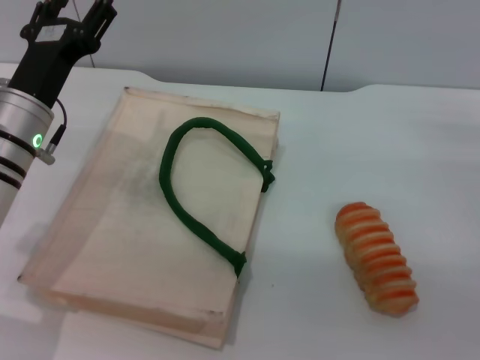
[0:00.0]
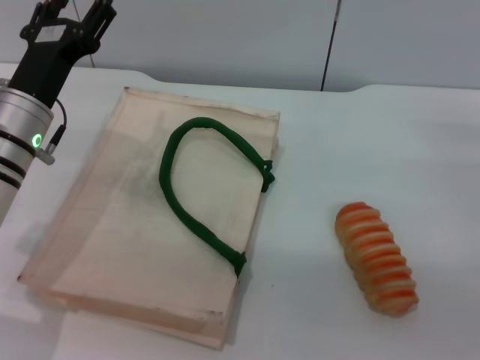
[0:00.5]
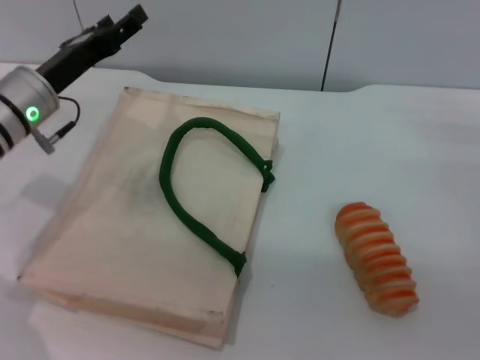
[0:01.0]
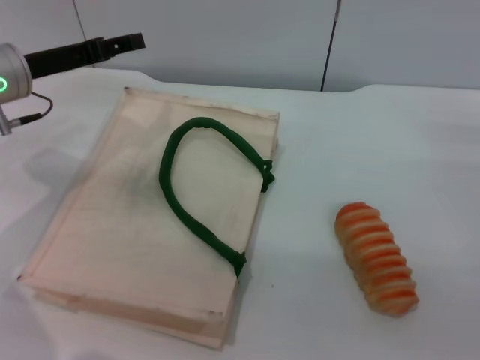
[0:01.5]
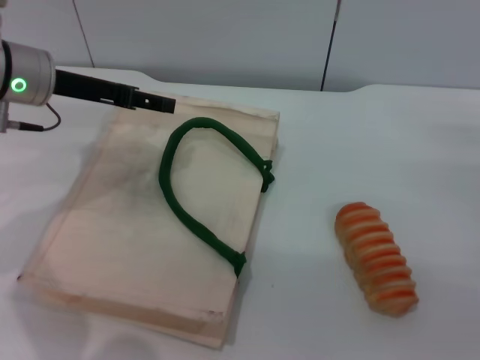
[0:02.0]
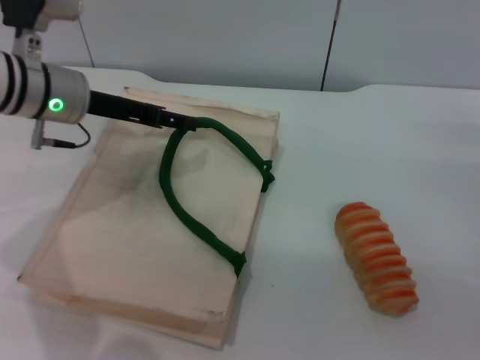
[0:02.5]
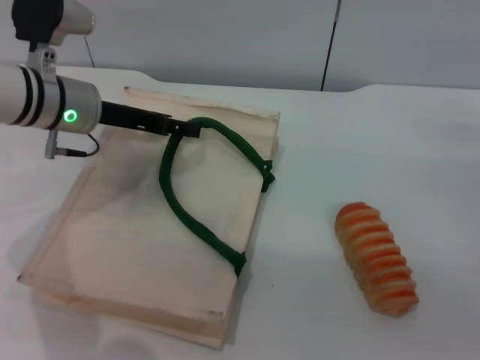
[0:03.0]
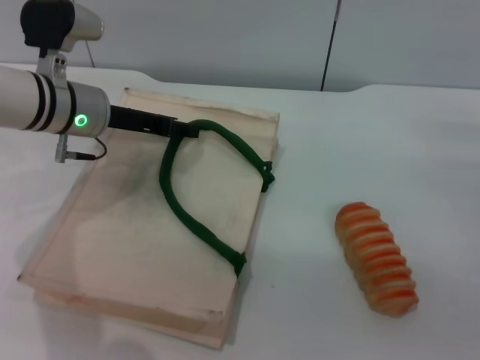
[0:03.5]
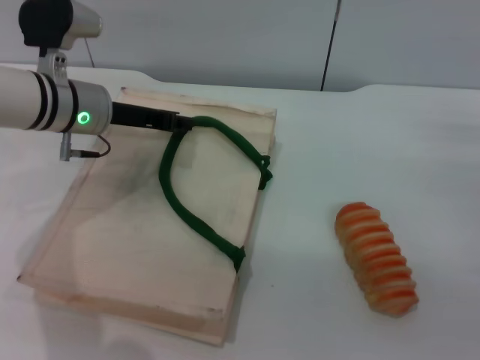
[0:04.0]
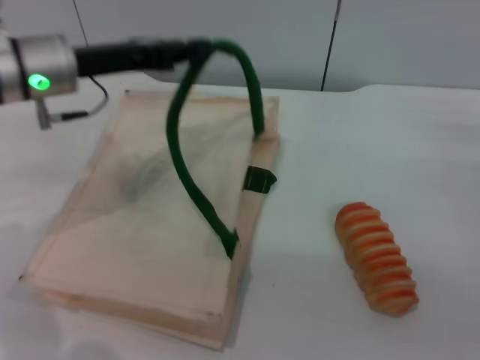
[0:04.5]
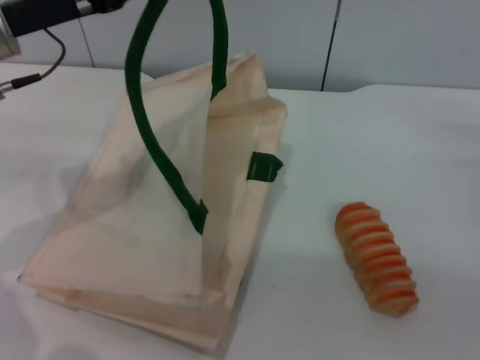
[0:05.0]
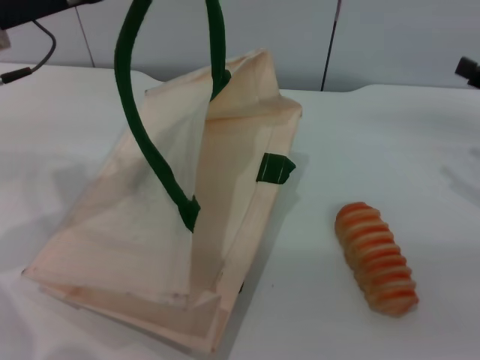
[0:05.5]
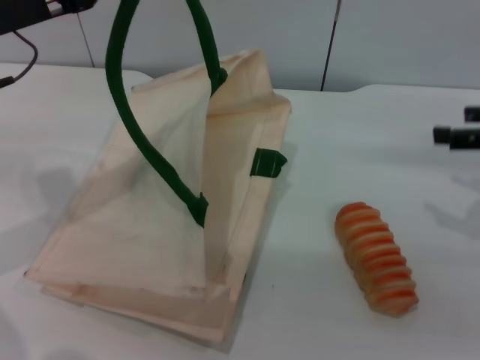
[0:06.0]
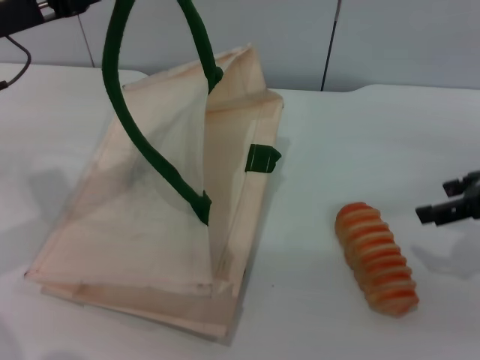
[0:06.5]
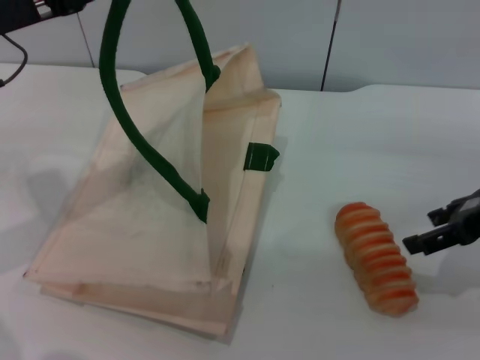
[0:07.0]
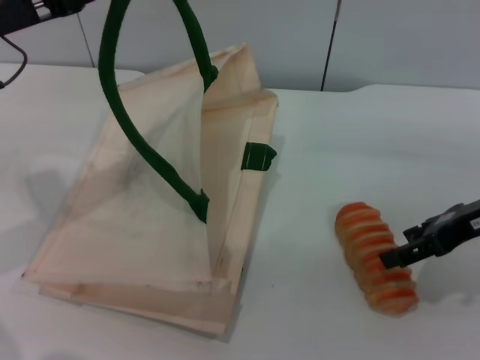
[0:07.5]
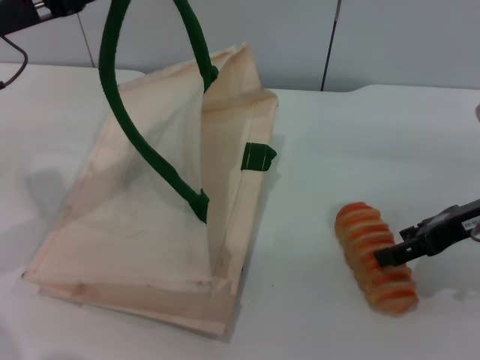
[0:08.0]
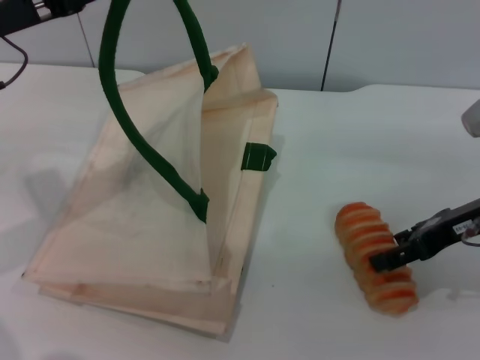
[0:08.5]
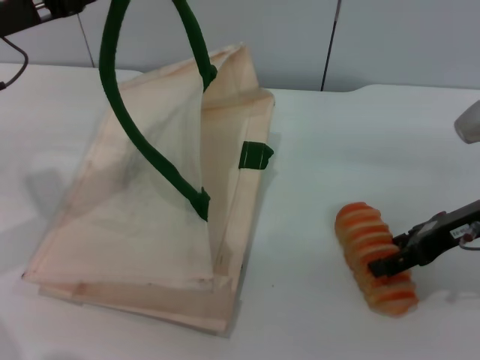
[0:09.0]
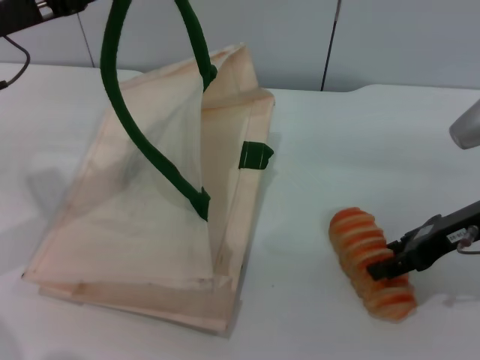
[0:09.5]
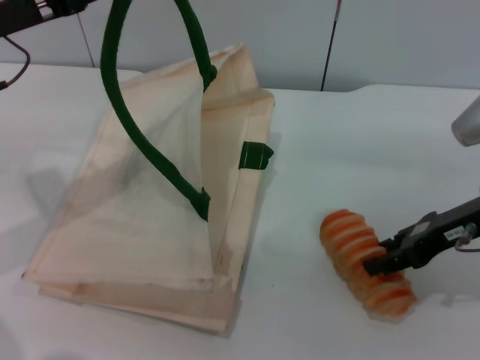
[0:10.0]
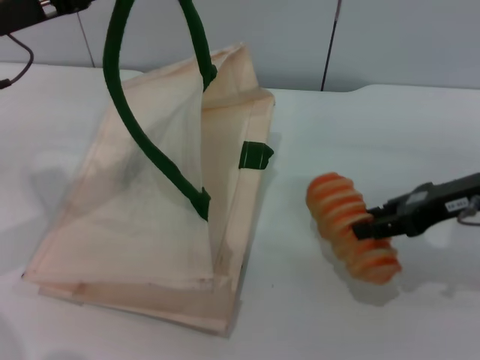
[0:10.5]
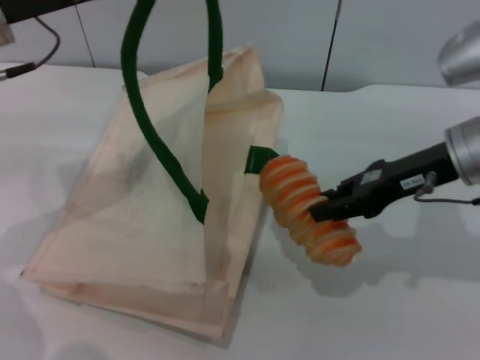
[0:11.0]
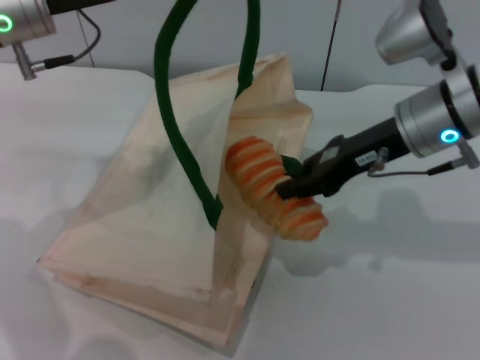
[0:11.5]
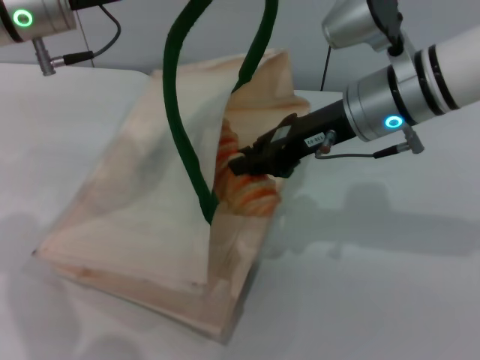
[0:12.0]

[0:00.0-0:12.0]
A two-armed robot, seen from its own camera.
Task of the whole recording: pick up the bread from the table and place it in the white handbag.
Step, 0:00.0 to 0:04.5: Lift the woven bag with the left gripper to open it.
Step, 0:05.0 to 0:10.5: Pick up the bread with the right gripper.
0:00.0 to 0:02.0: The left gripper is displaced upward and forward by about 10 cm.
0:02.0 to 0:04.0: The left gripper goes some 5 cm downward, and closes its fingers.
0:04.0 to 0:06.0: The left gripper goes about 10 cm upward and to the left. Meanwhile the right gripper is displaced upward by about 10 cm.
0:06.0 to 0:08.0: The right gripper shifts about 5 cm to the left.
0:08.0 to 0:10.0: The right gripper closes.
0:10.0 to 0:12.0: The right gripper shifts some 15 cm to the left and forward, and closes; the left gripper moves to the right, some 10 cm.

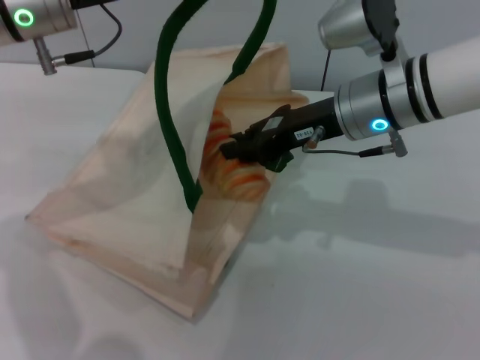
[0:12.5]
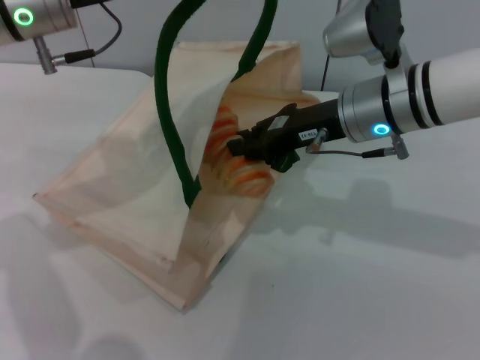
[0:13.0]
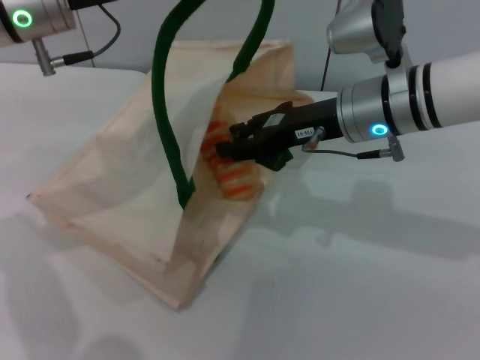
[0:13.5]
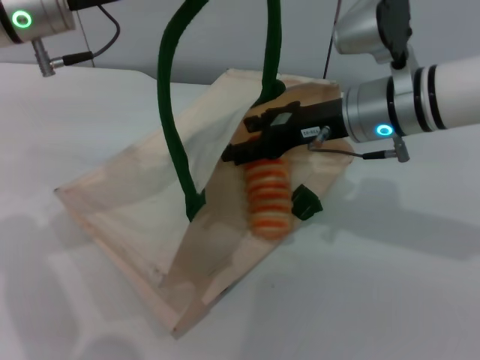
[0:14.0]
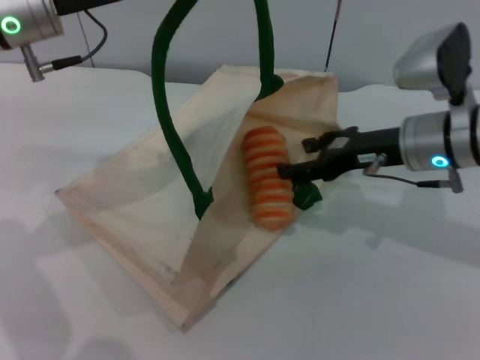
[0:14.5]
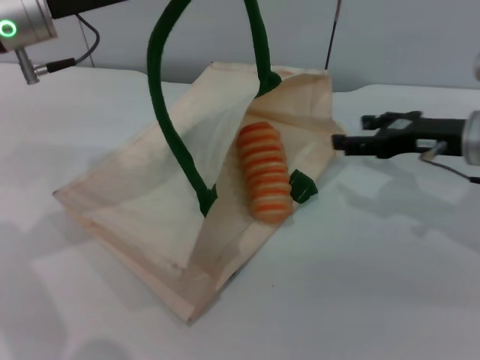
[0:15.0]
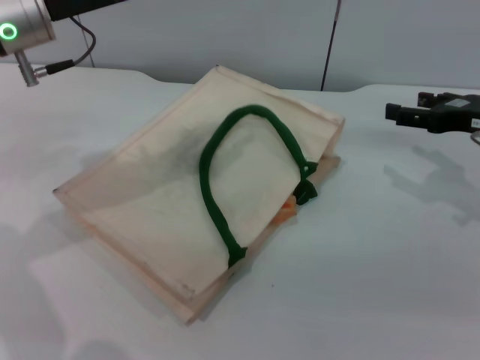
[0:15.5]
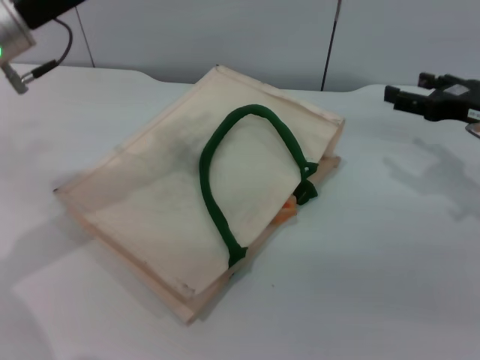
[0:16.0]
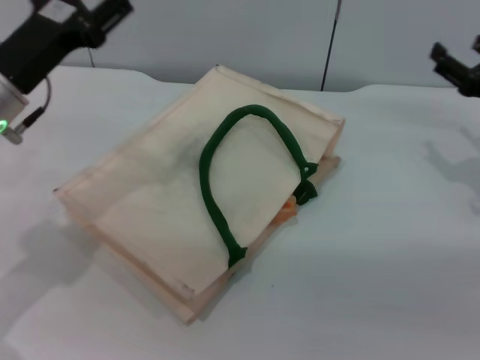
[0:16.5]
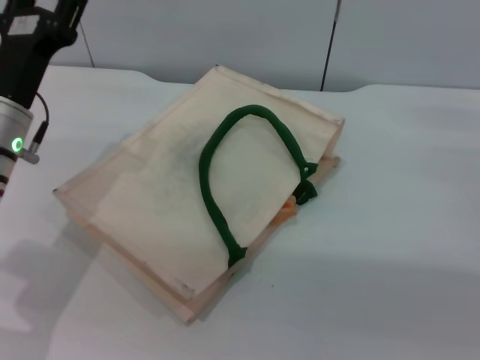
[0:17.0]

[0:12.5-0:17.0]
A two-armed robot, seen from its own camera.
Task of the whole recording: pick up the bread from the table and place it in the white handbag.
0:12.5 to 0:14.5: The right gripper is displaced to the right by some 5 cm, and opens its fingers.
0:14.5 to 0:17.0: The right gripper is displaced to the right by about 15 cm; the left gripper shifts about 15 cm downward and backward, and opens up.

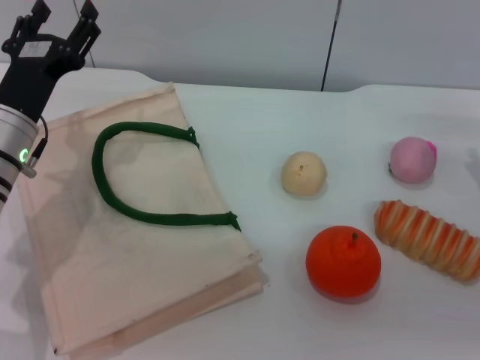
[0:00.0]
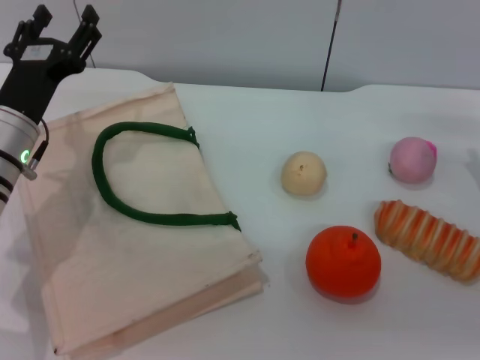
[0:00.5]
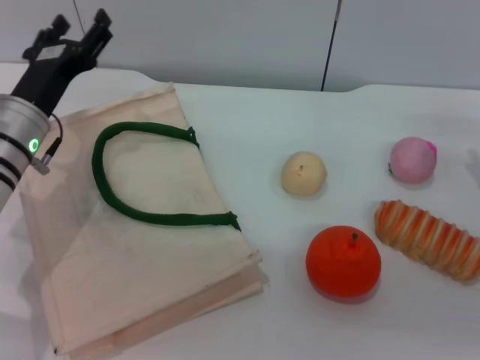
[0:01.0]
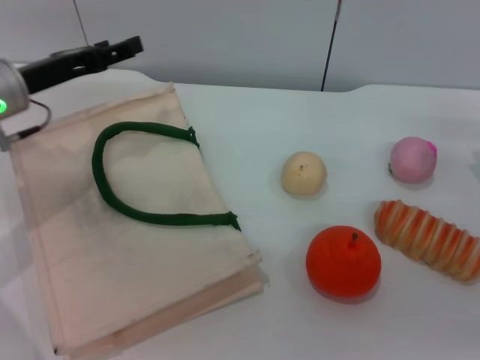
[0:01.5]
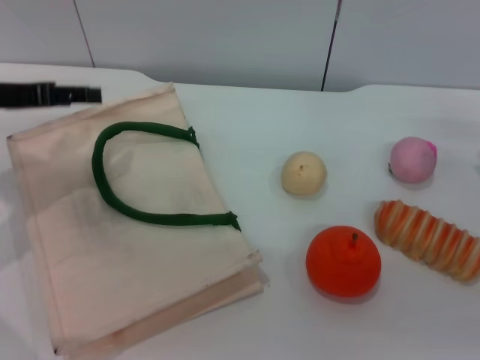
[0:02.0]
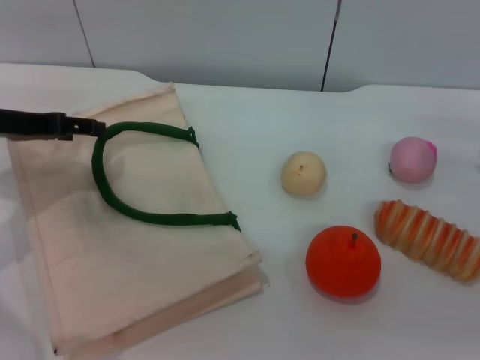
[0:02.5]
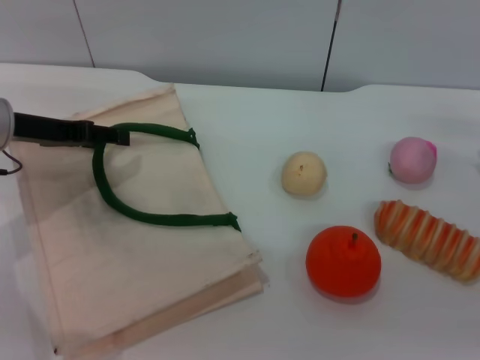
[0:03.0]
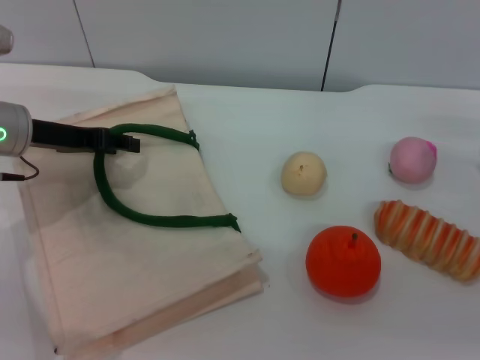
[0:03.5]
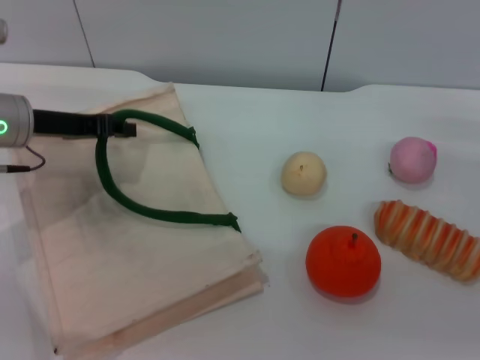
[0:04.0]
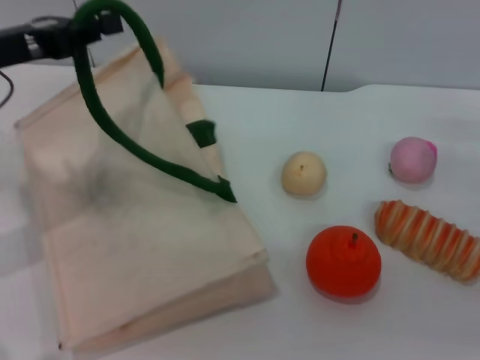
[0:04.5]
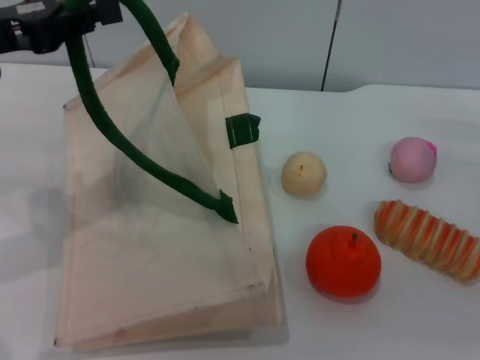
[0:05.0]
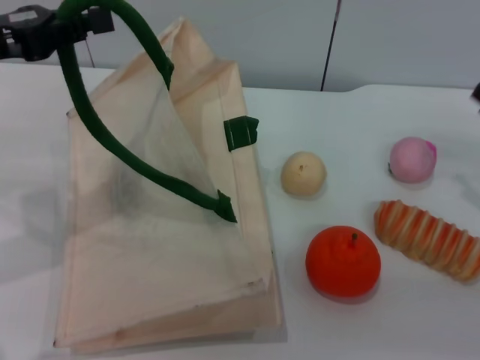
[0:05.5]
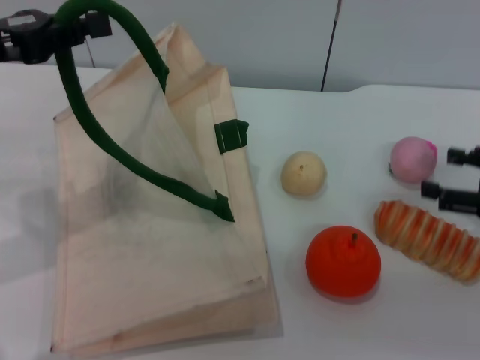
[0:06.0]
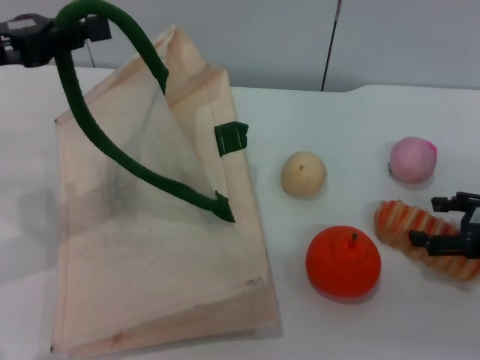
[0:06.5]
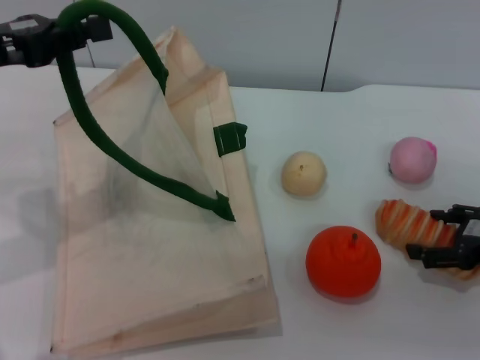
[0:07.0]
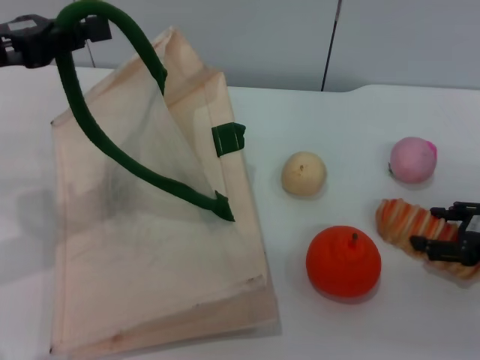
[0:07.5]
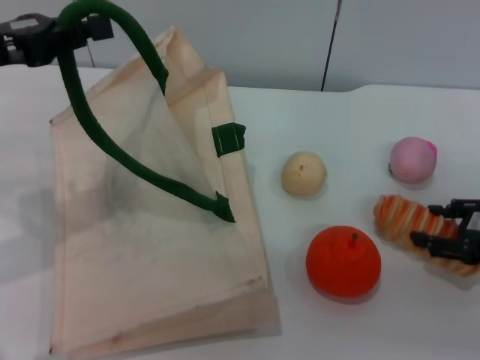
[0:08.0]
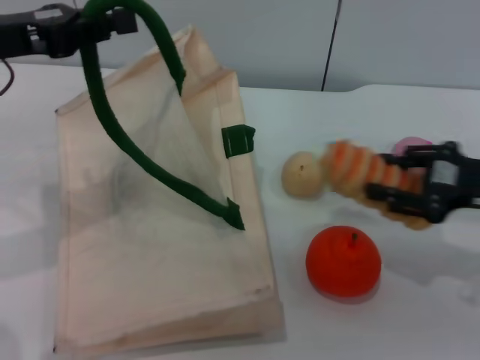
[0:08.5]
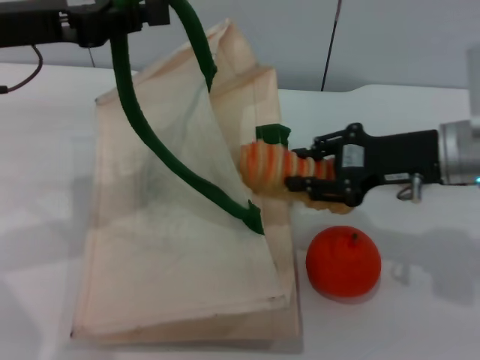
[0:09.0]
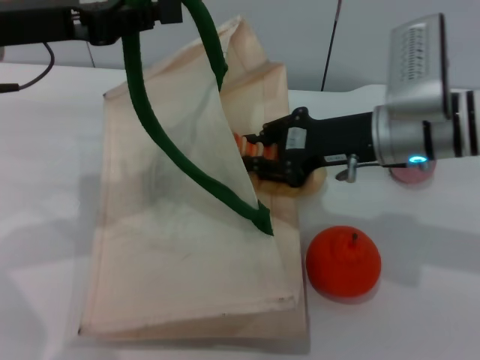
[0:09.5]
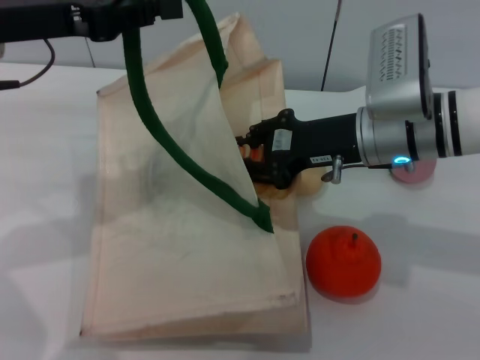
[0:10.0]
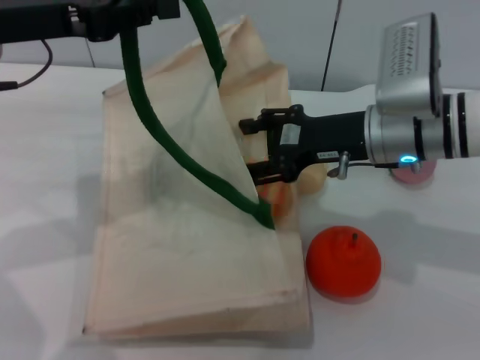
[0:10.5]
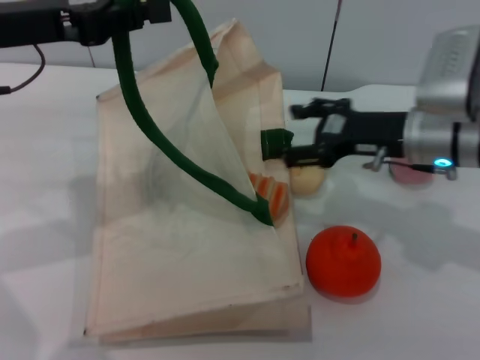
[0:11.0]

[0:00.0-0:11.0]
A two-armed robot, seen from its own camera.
Task of the whole recording: pick up the bread from the table and place it in the white handbag.
Step, 0:00.0 to 0:04.5: Lift the woven bag with the left gripper to open it.
Step, 0:05.0 to 0:08.0: Pick up the bread with the right gripper.
Step, 0:08.5 to 0:10.5: Place the bread into the woven bag with the right gripper.
0:00.0 to 0:02.0: The left gripper travels upward and to the left by approximately 10 cm.
0:02.0 to 0:03.5: The left gripper shifts by approximately 5 cm.
0:03.5 to 0:05.5: The left gripper travels upward by some 10 cm, and closes its fingers.
0:07.5 to 0:09.0: The right gripper goes about 15 cm to the left, upward and forward, and closes its fingers; the left gripper ends up about 5 cm from where it was.
0:09.0 to 0:11.0: The right gripper opens.
